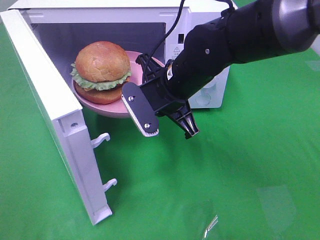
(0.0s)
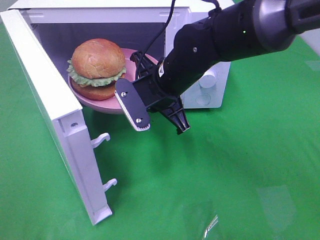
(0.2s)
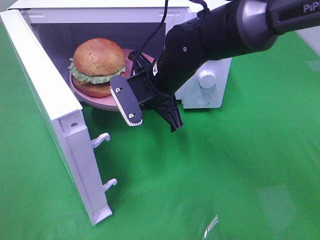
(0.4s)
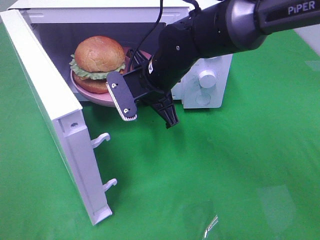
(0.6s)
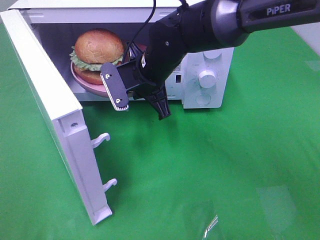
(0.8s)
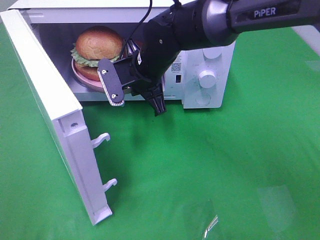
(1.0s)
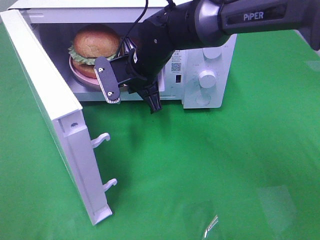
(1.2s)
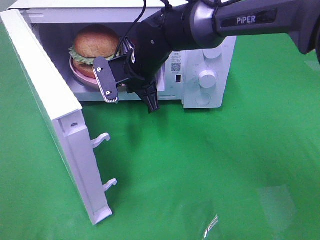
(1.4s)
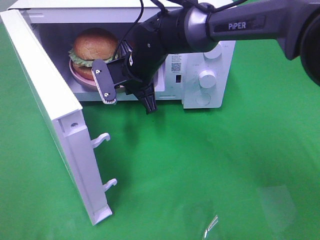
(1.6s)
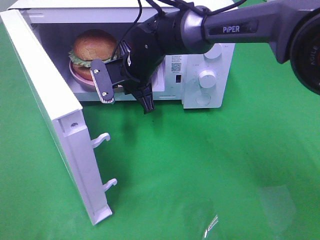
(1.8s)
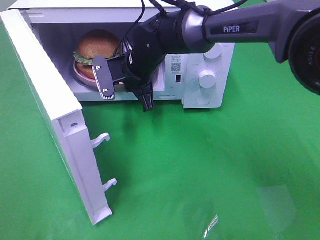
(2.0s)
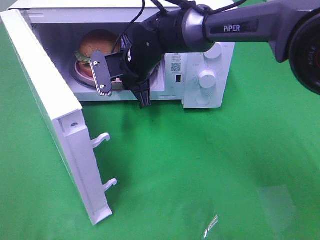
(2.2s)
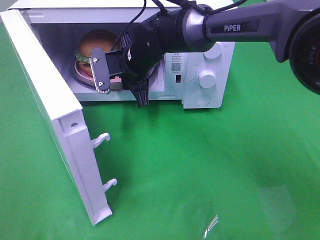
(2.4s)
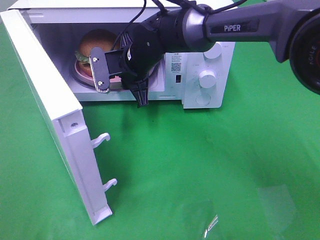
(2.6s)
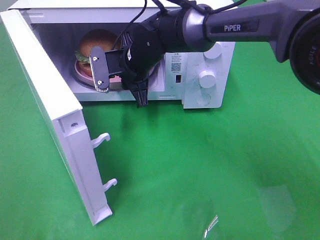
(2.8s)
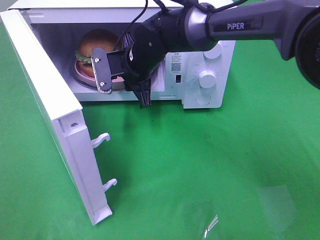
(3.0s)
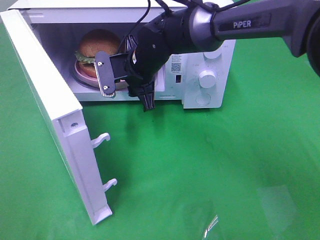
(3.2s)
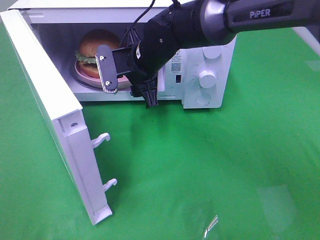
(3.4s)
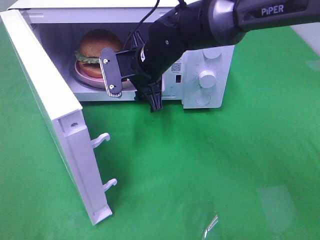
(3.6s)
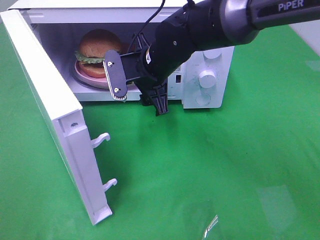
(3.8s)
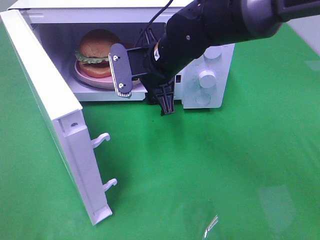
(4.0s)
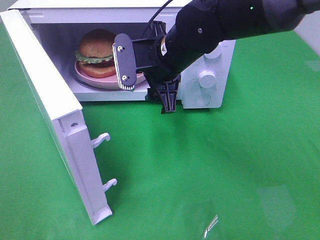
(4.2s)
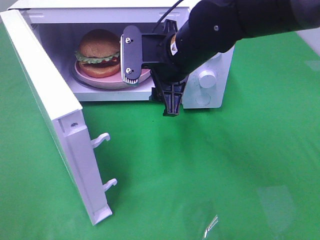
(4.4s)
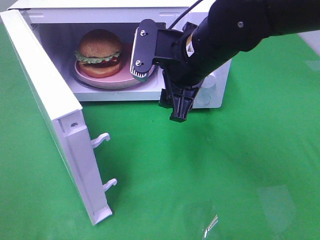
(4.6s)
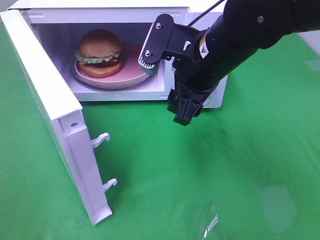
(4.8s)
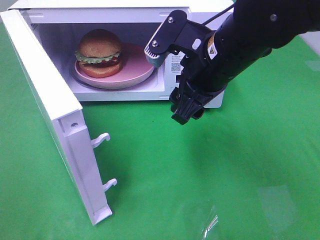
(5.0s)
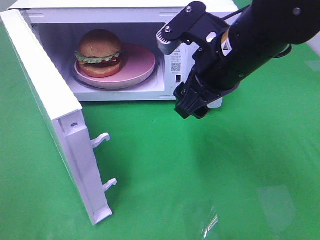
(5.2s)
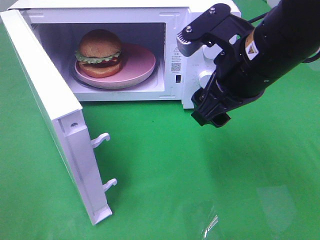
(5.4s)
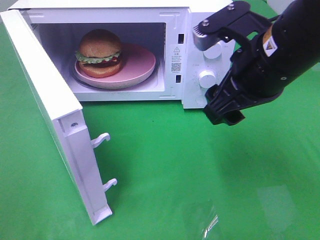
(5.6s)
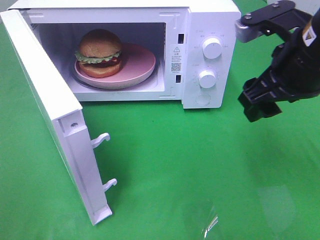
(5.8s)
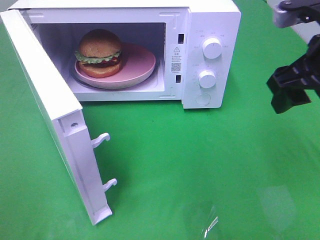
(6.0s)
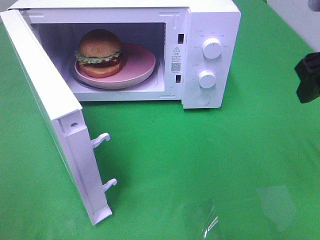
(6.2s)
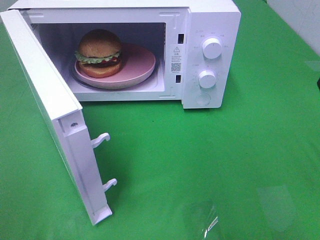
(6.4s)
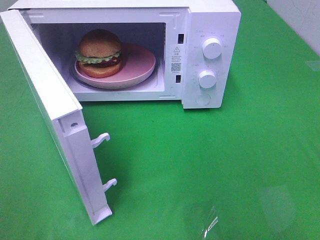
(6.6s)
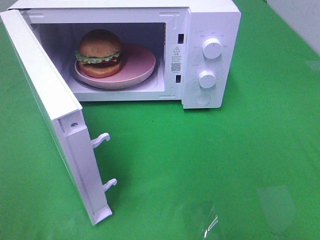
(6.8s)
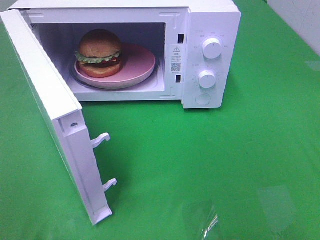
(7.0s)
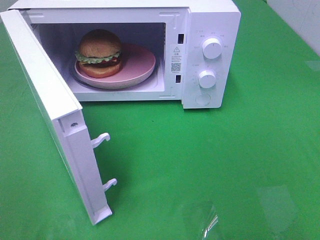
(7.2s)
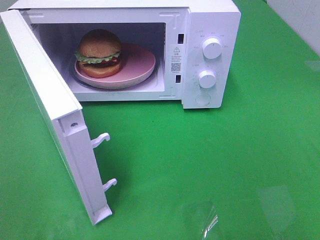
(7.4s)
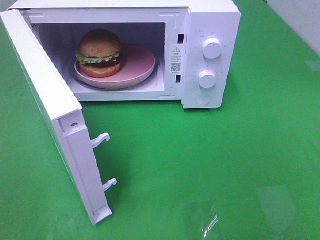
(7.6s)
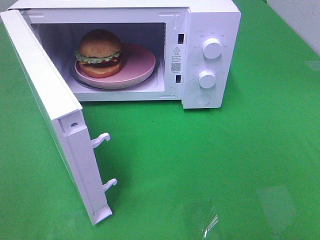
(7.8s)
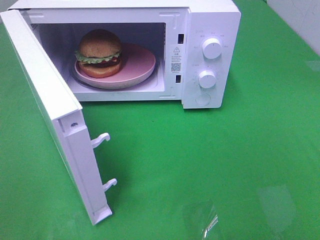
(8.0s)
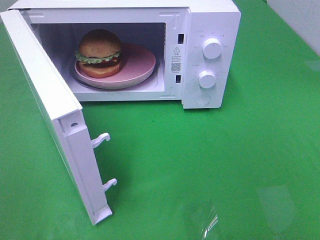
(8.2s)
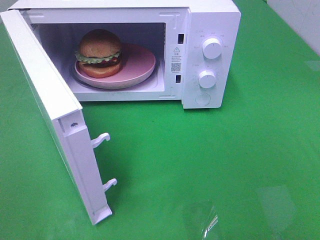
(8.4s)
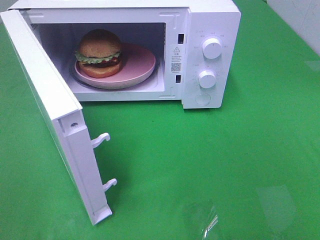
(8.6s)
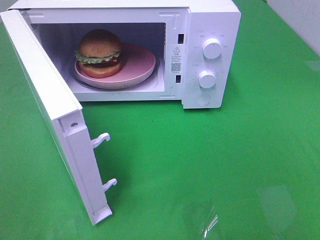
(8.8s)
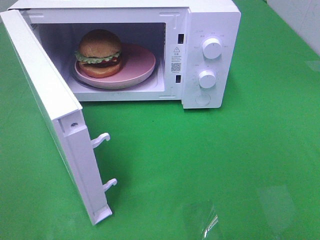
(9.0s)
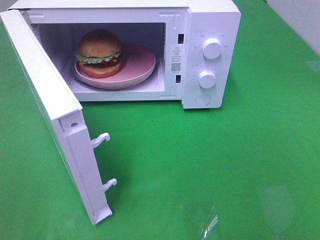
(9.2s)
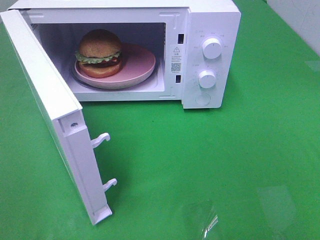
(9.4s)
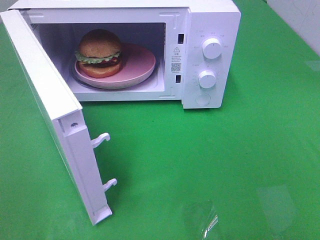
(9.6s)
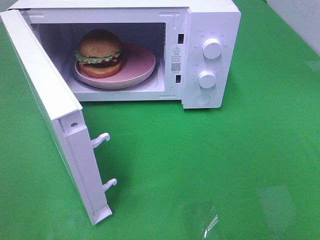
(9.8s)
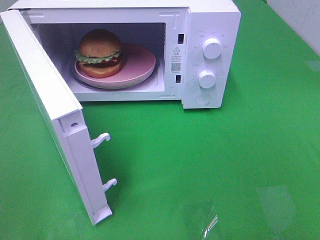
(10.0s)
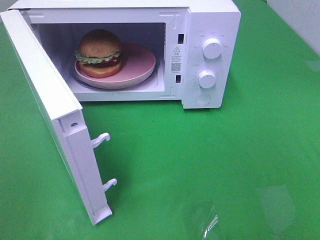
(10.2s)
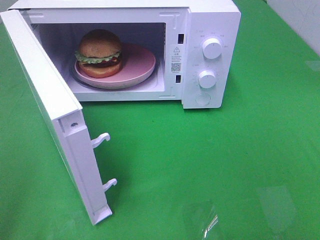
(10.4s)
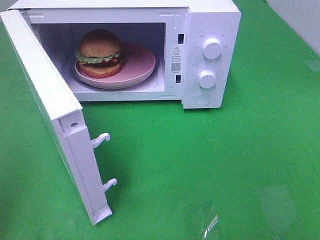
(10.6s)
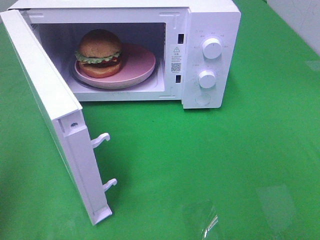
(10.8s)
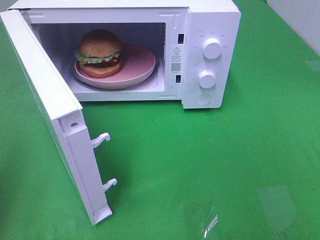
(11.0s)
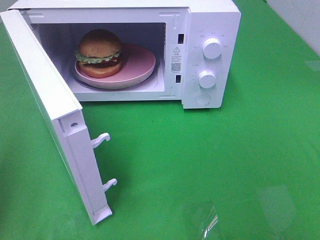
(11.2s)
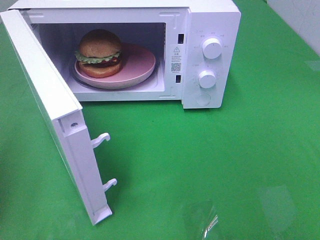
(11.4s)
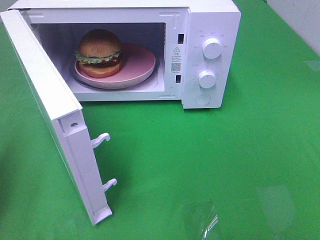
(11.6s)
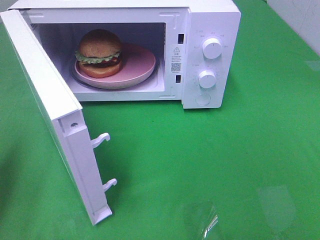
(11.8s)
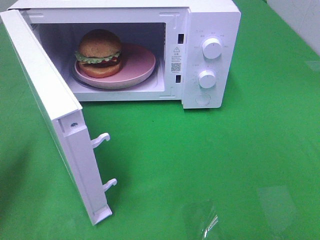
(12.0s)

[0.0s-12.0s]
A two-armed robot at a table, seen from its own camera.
Task of the whole recording: Heat the burger.
Step, 0.0s to 3.6s: Right hand: place the plate in the microwave.
0.0s to 1.6s: The right gripper heads forward and to the left, covering roughly 10 cm.
1.6s to 3.0s: The right gripper opens up.
3.0s to 4.4s: The right gripper heads backward, to the right and upward, covering approximately 15 cm, and opens up.
4.4s to 6.0s: The right gripper moves to the right and backward, approximately 20 cm.
6.0s to 7.6s: The right gripper is displaced backward by approximately 20 cm.
10.4s to 12.0s: The left gripper moves forward and downward, about 20 cm, and closes up.

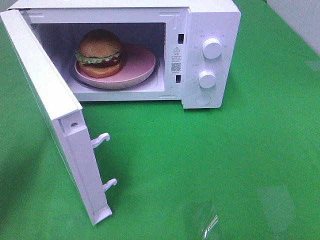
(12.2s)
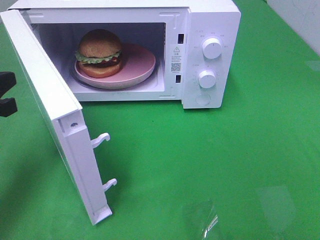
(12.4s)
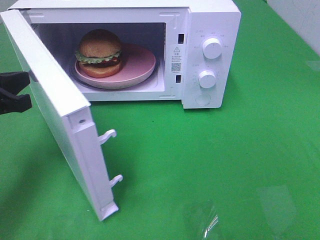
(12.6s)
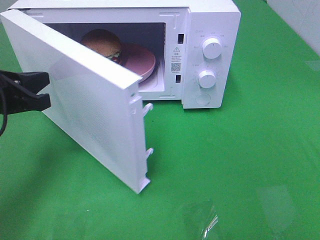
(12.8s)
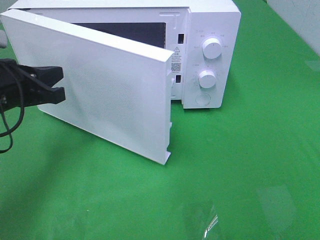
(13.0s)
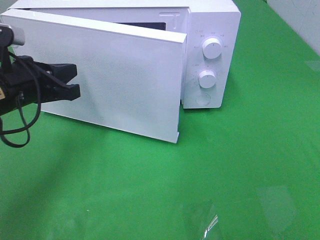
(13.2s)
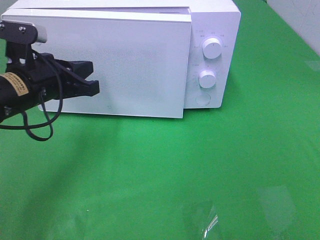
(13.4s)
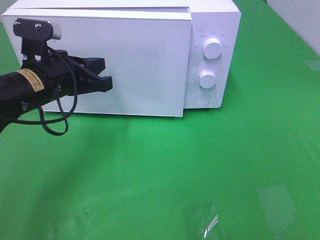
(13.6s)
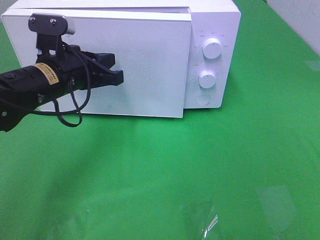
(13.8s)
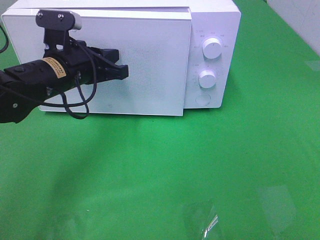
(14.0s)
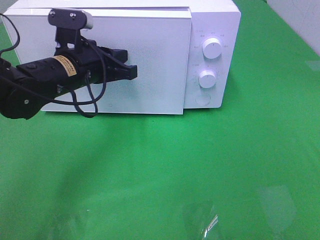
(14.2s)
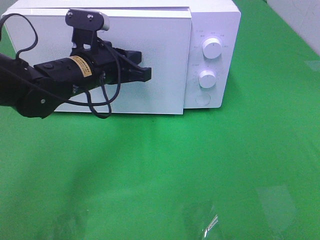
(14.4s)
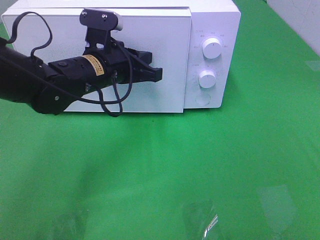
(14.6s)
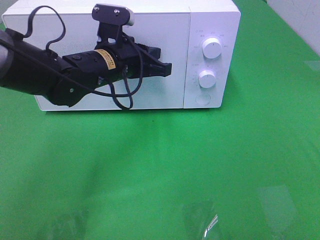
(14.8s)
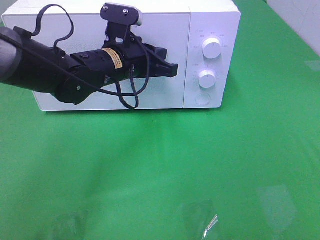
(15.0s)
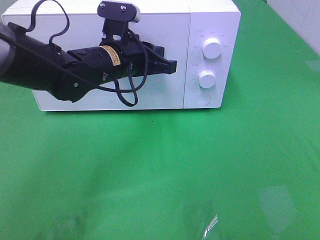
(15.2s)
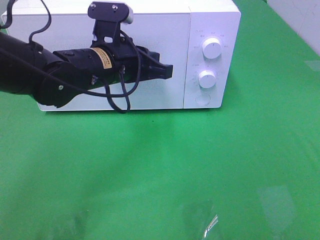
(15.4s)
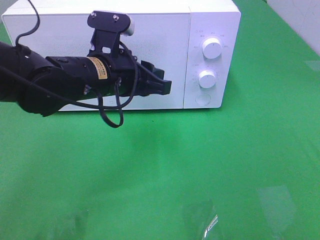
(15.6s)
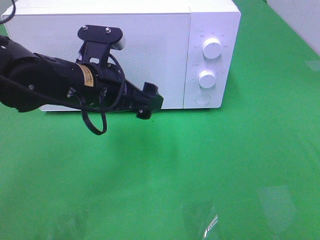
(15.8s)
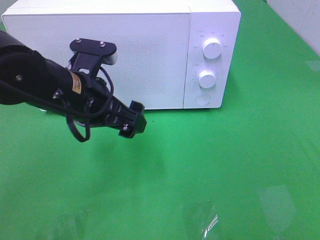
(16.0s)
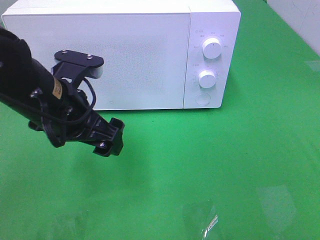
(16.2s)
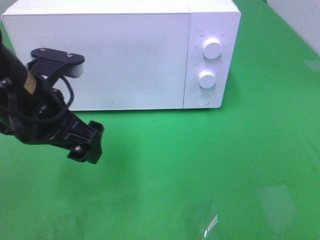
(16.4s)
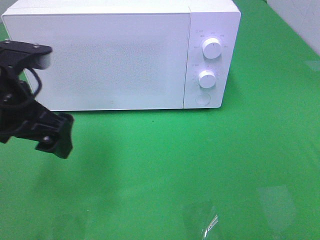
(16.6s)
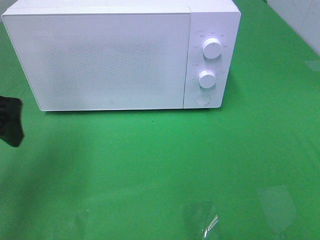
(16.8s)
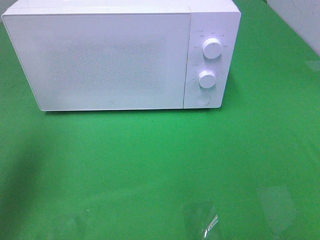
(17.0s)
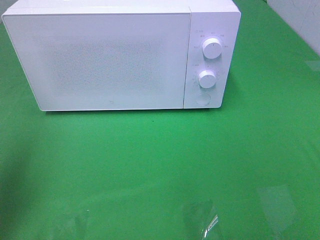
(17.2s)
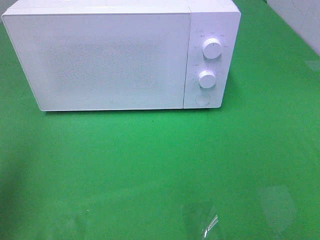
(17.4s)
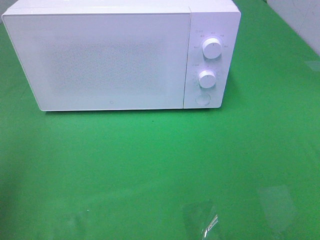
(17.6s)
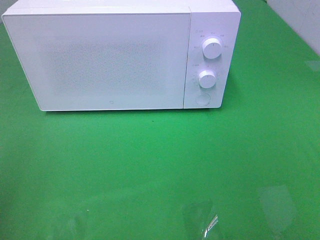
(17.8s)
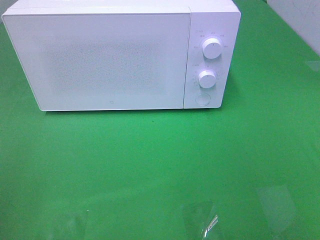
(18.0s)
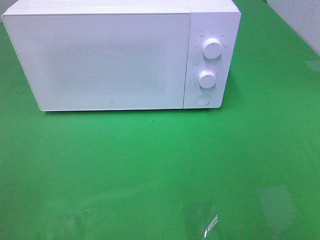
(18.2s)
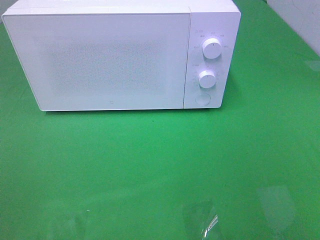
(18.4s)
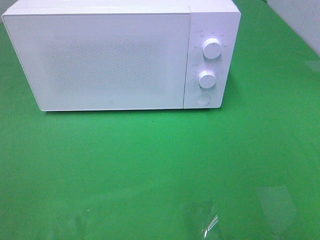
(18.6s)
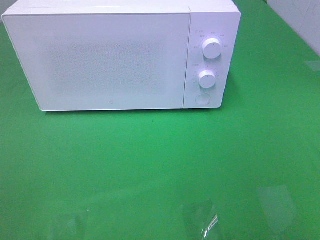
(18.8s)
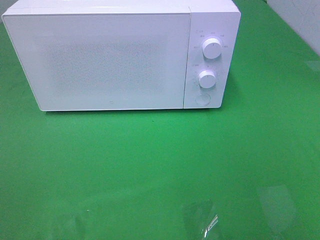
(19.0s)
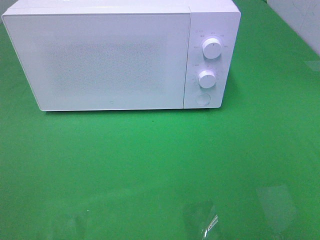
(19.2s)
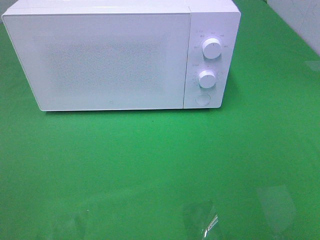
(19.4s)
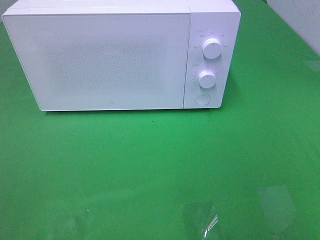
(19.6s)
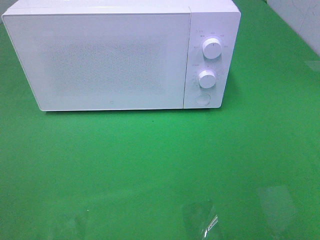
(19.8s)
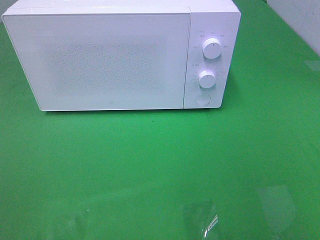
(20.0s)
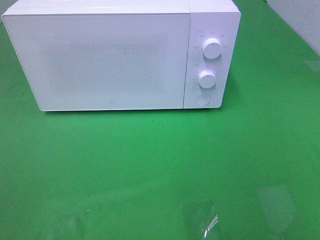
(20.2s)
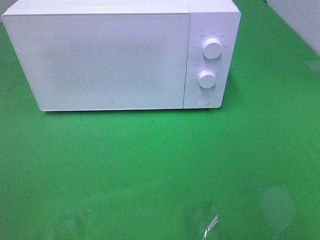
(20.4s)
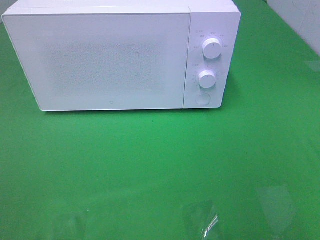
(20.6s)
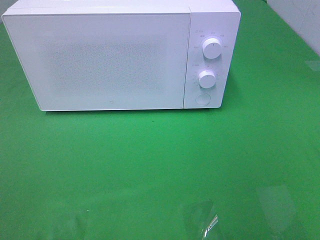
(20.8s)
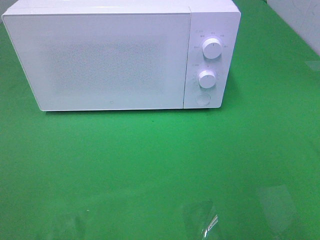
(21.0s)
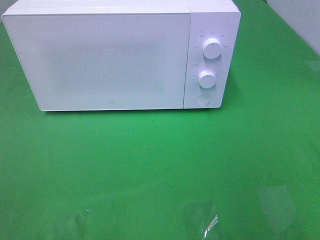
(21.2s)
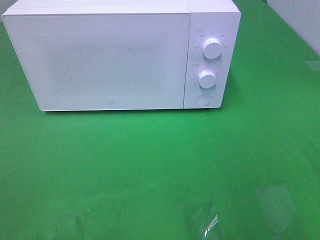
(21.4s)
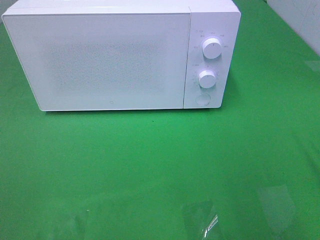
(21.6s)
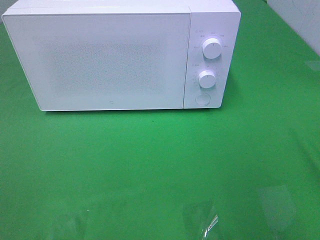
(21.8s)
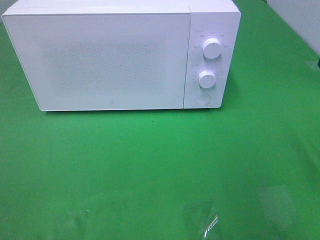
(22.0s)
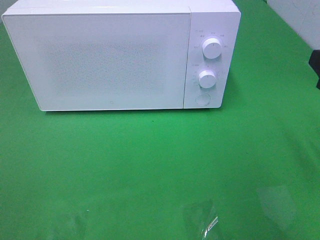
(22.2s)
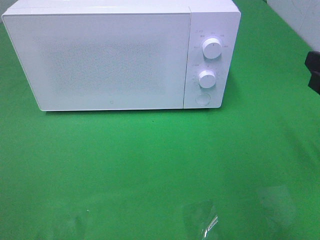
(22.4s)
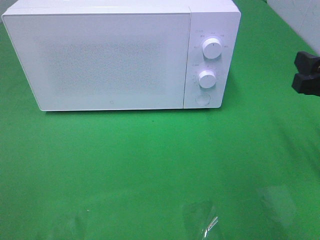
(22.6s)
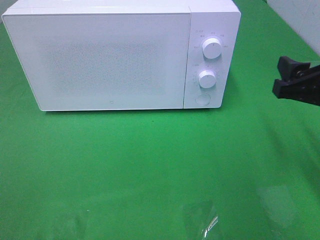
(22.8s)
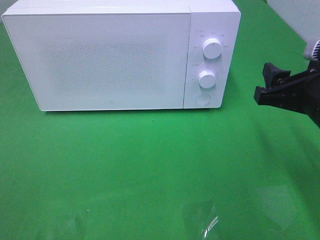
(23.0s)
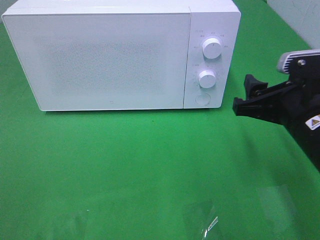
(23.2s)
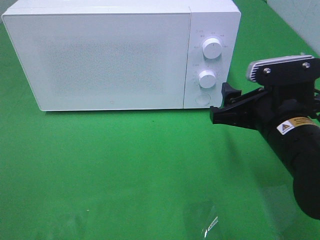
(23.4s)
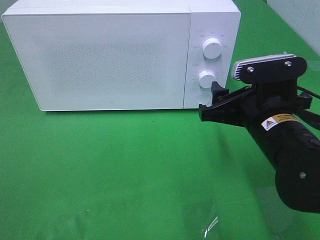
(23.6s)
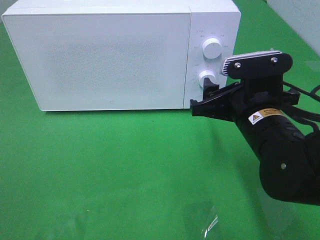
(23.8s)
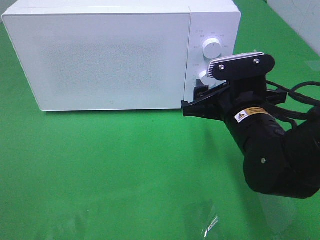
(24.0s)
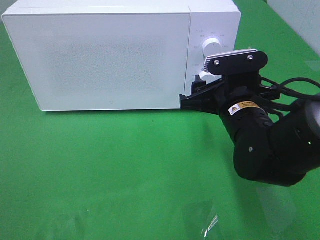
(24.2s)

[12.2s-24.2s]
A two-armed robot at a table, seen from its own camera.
Task of the whole recording: Heat the burger.
Step, 12.2s to 15.6s: Left hand: close the microwave door.
12.2s to 13.8s: The left gripper goes about 20 cm to the right and forward.
13.8s to 15.2s: The left gripper is displaced to the right by approximately 10 cm.
15.2s to 16.6s: The left gripper goes roughly 20 cm to the left, backward and upward, and opens.
16.6s to 18.2s: The left gripper travels backward and to the left by approximately 25 cm.
21.2s to 22.6s: The right gripper heads forward and downward, covering some 15 cm.
22.6s to 24.2s: The right gripper is displaced to the left, downward and forward by about 15 cm.
